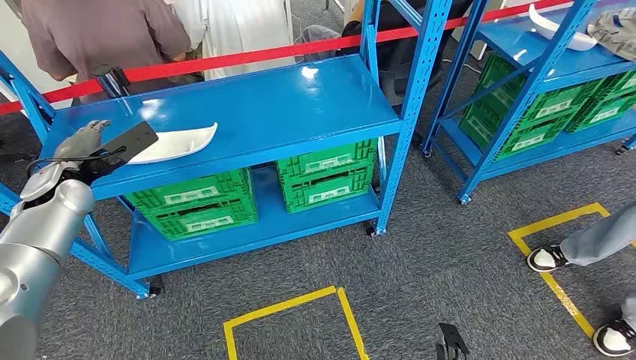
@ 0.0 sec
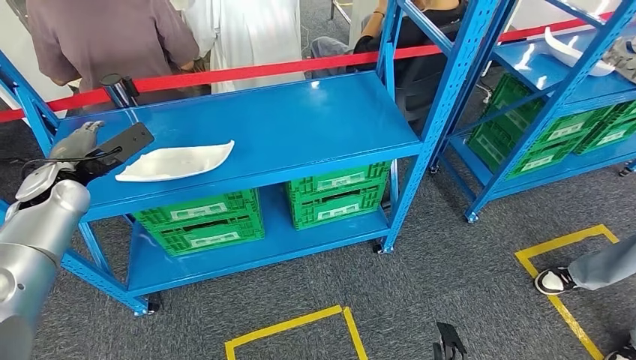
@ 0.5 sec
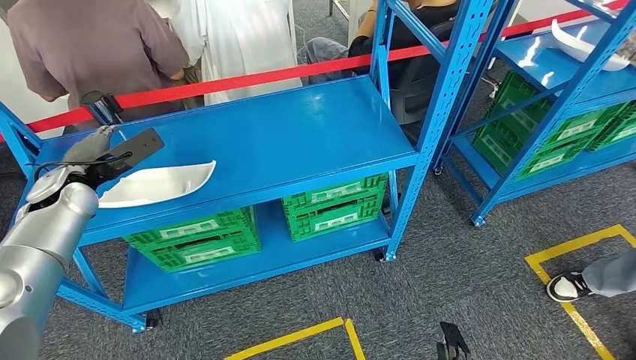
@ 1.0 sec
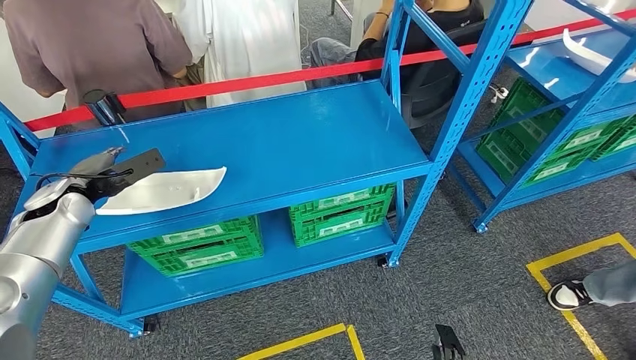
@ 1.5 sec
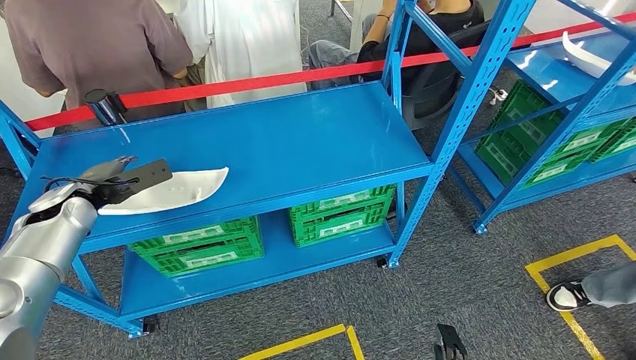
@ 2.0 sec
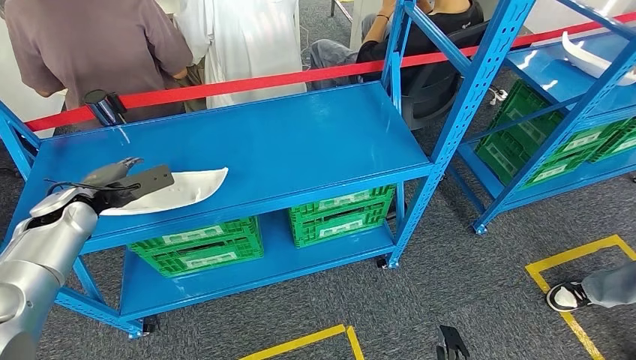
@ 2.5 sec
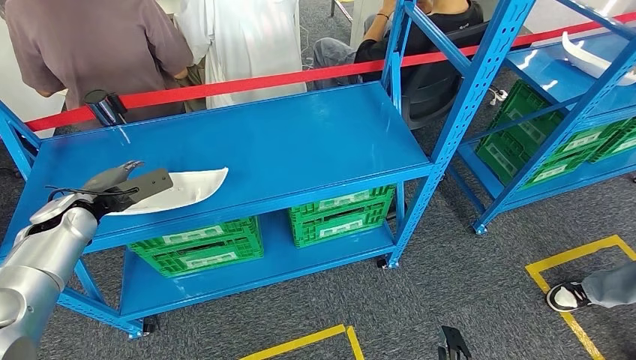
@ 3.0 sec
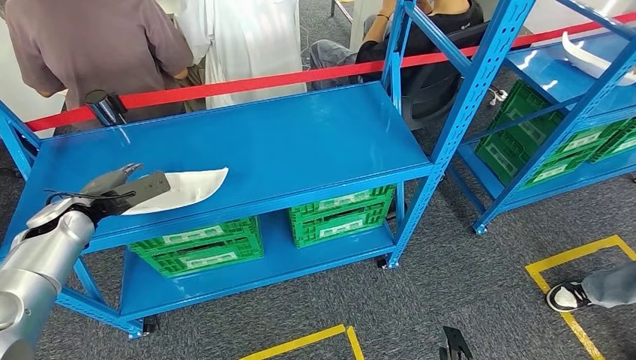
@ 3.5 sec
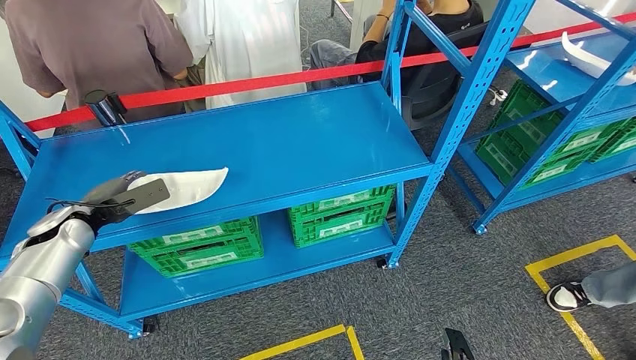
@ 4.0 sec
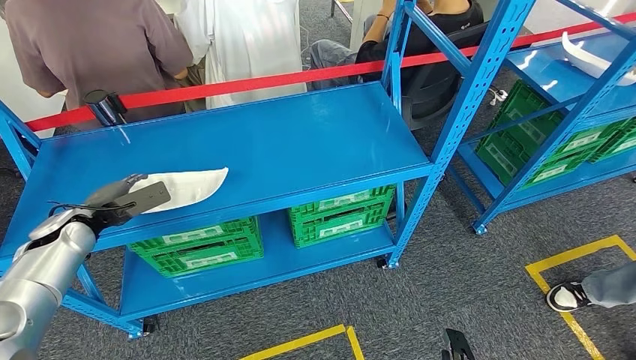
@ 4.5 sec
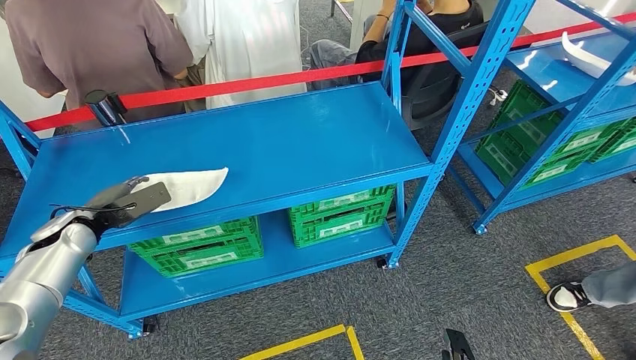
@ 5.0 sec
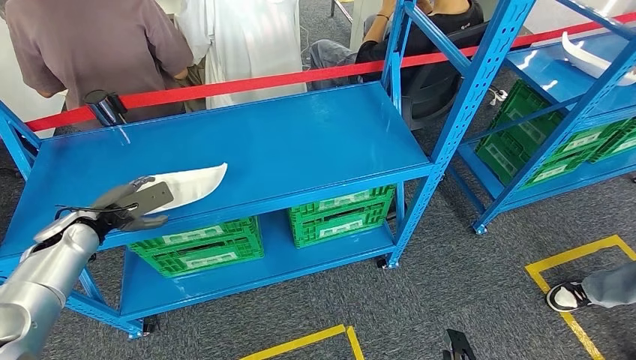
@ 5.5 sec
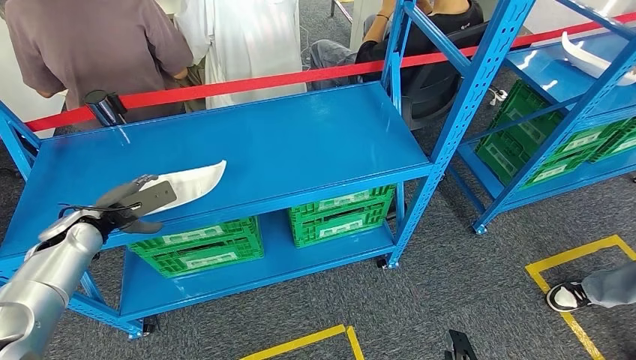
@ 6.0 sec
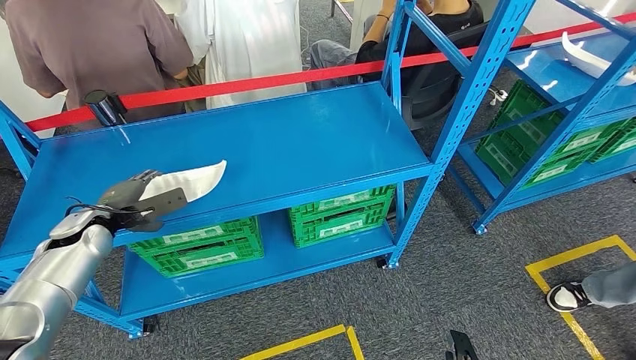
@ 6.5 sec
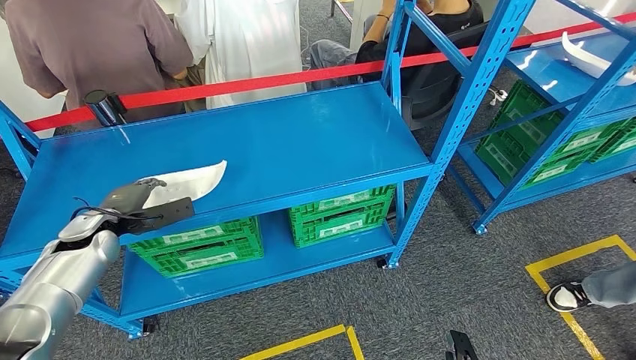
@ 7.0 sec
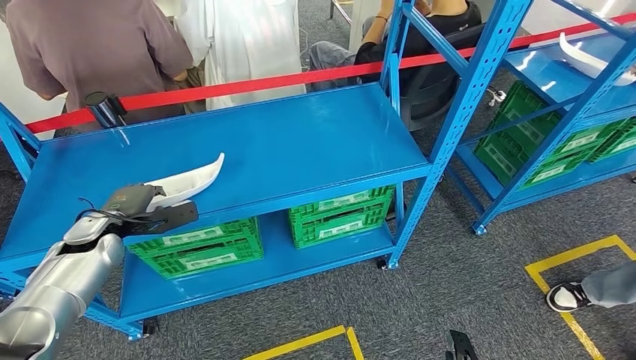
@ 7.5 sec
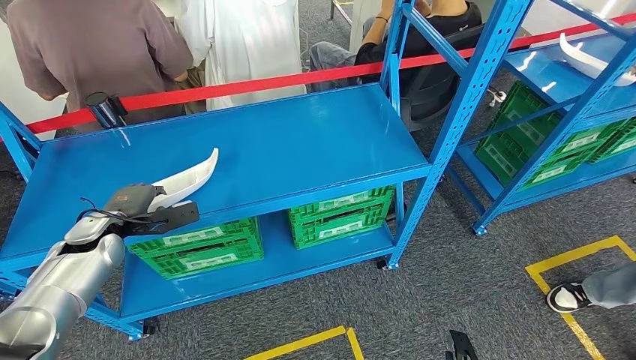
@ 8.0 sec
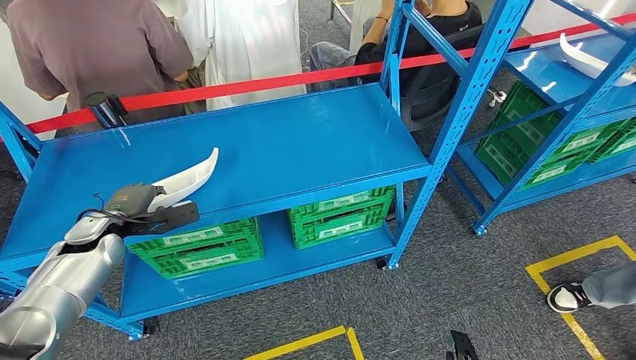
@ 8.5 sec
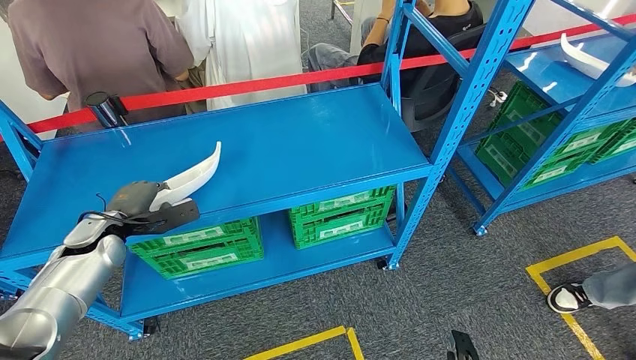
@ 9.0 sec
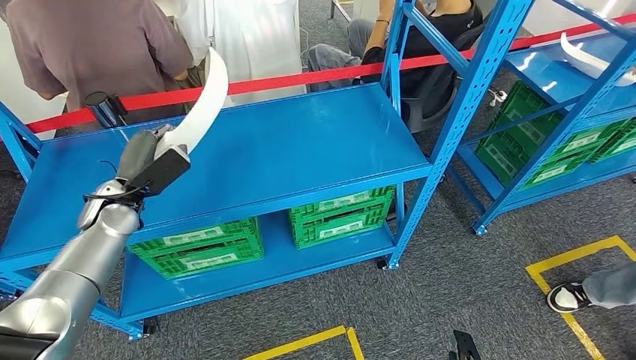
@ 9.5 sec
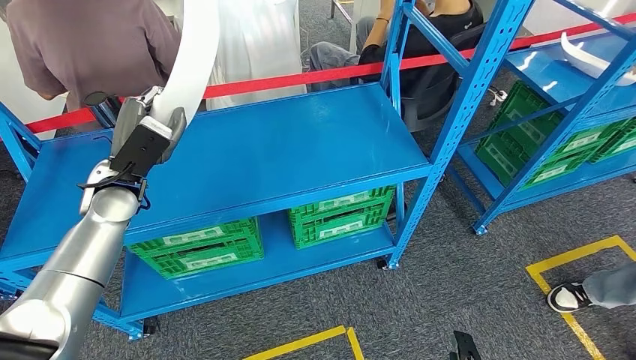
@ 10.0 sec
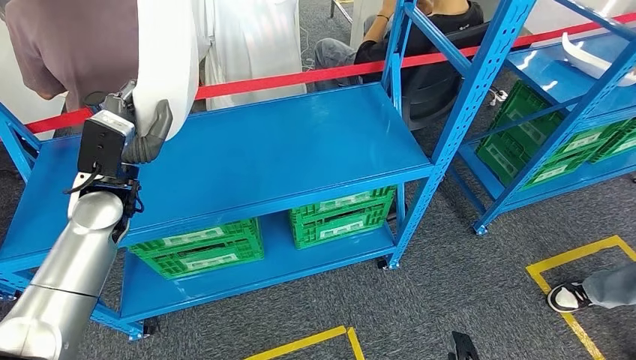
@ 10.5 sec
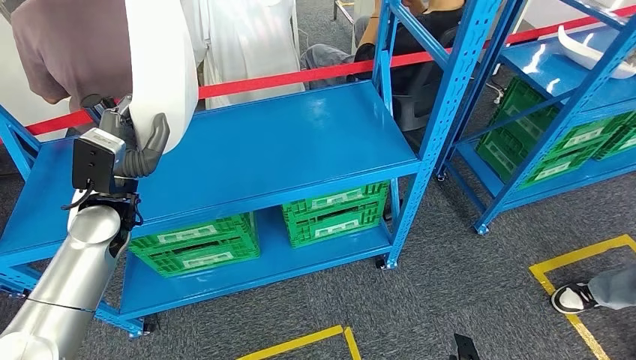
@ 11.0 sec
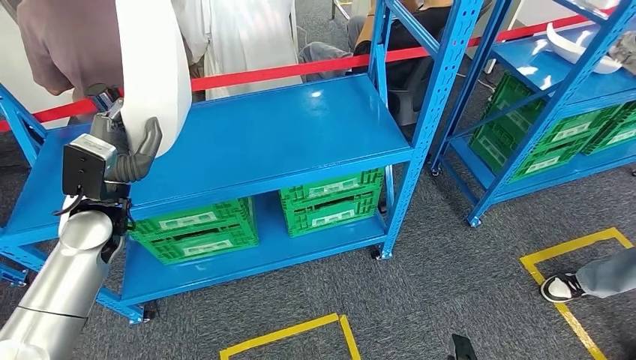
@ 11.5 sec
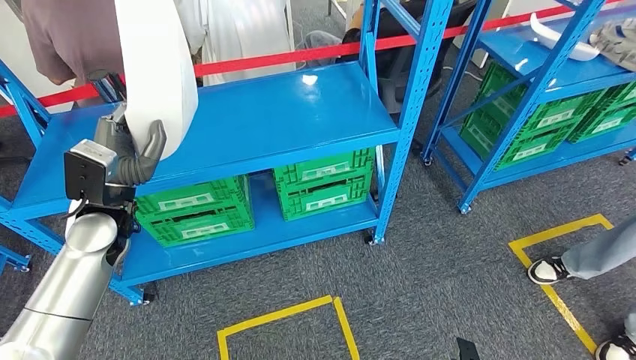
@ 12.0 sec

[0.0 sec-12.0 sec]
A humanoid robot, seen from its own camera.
Step, 0.0 sec to 10.0 sec: Pick up the large material from the shelf.
2.0 sec to 6.0 sec: The hands move only a little.
8.0 sec to 10.0 sec: The left hand shifts roughly 10 cm upward and to the right.

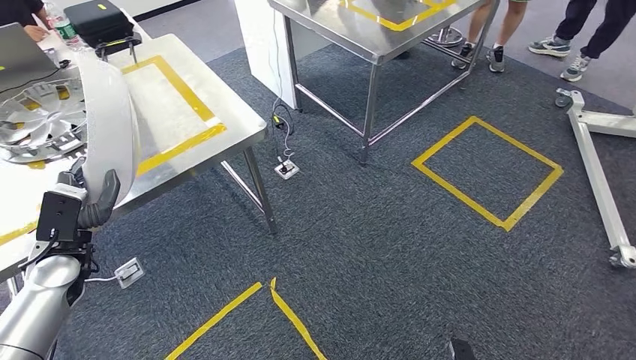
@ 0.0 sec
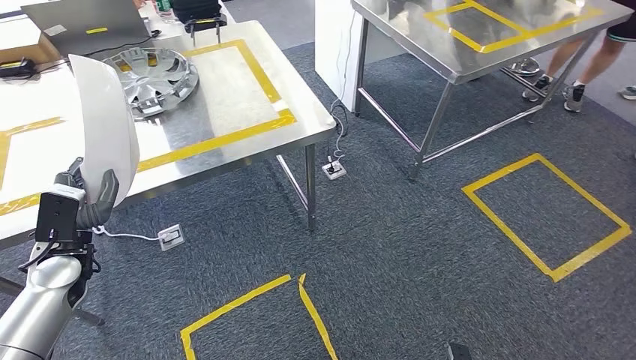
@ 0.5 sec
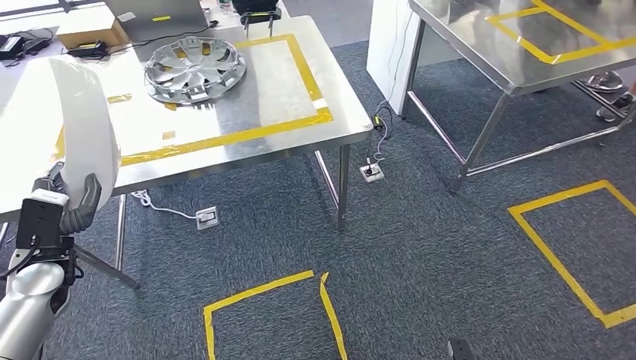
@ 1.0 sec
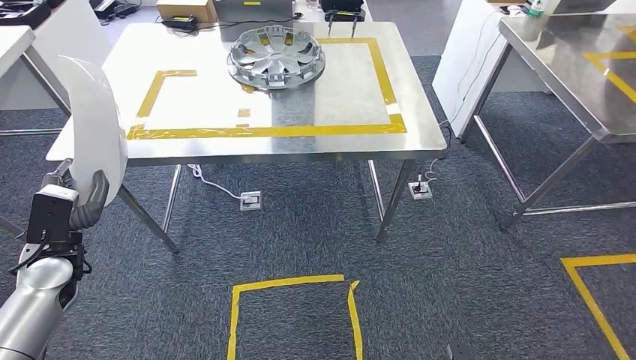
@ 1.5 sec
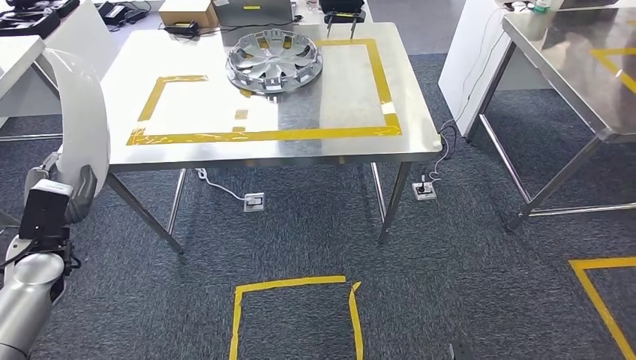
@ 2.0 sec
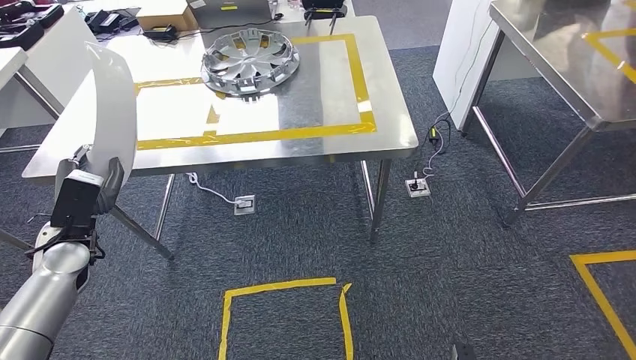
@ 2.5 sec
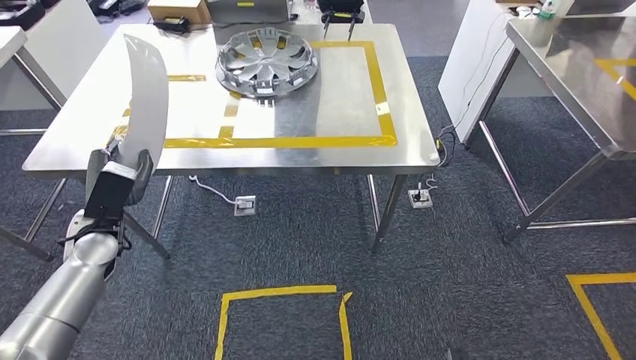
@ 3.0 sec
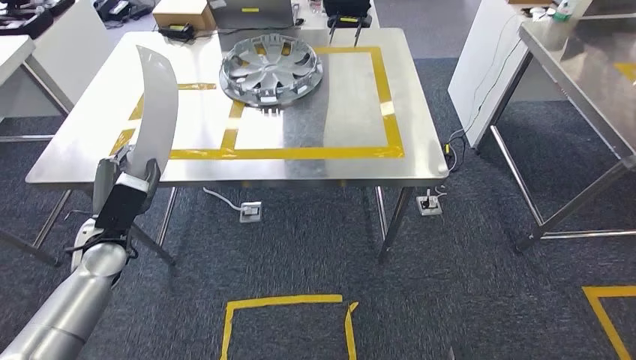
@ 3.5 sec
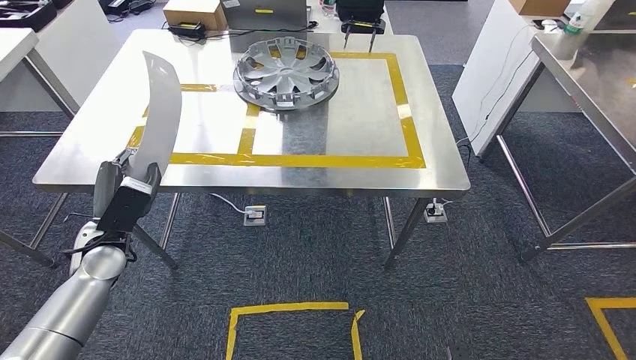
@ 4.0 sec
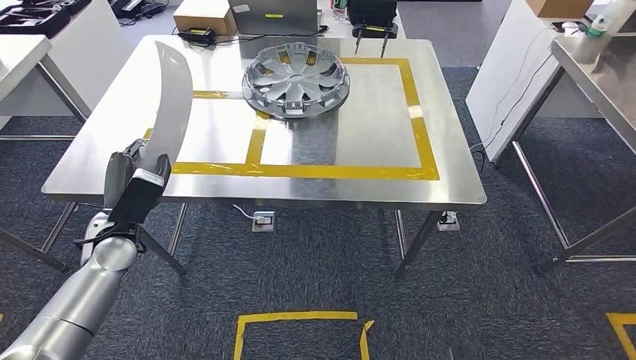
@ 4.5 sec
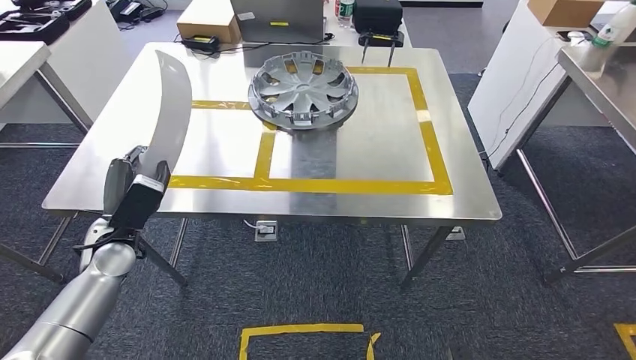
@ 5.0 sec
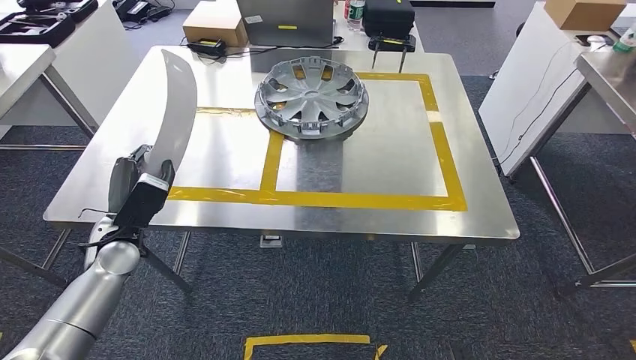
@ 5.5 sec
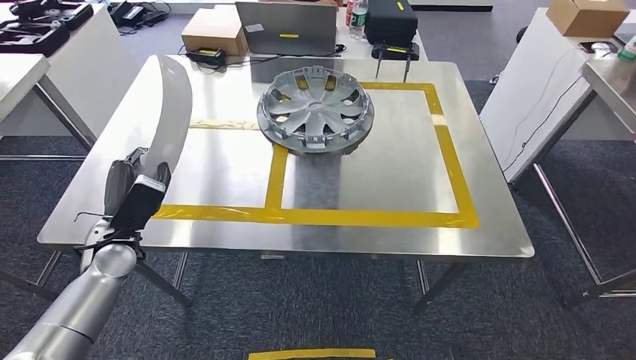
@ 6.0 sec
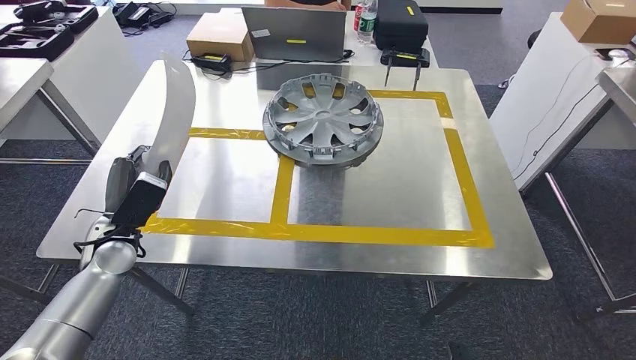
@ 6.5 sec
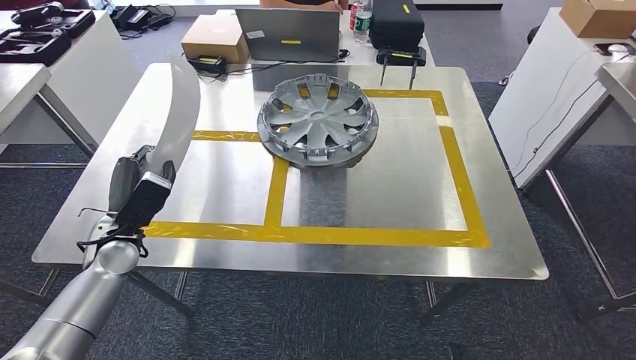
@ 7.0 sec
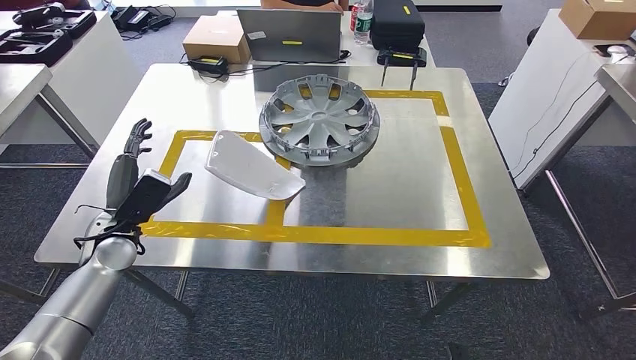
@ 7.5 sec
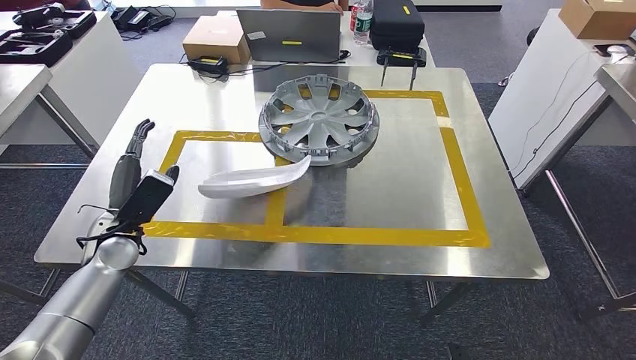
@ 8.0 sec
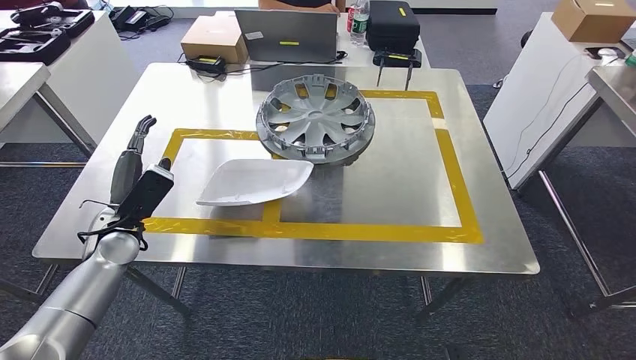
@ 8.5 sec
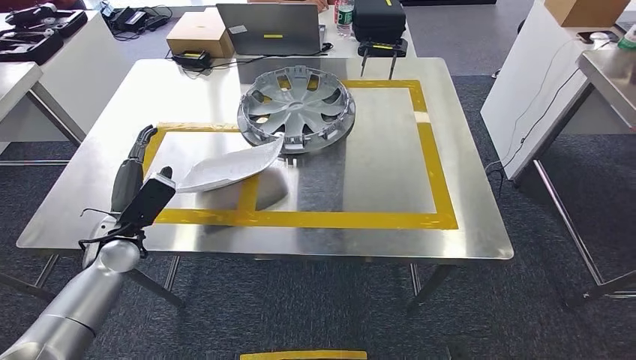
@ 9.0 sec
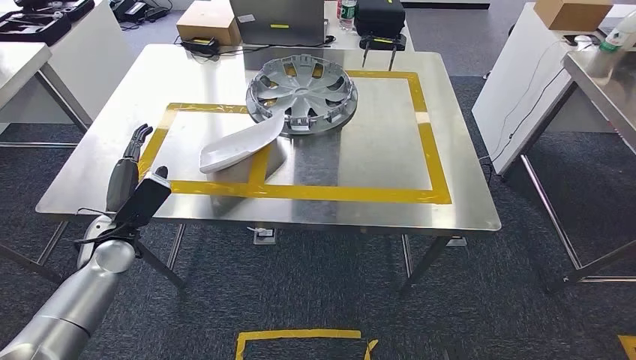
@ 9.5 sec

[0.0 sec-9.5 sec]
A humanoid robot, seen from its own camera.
Step, 0.0 sec to 3.5 sec: Move the large material to the workbench.
